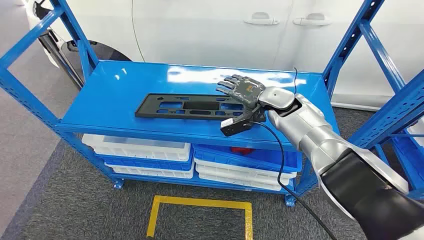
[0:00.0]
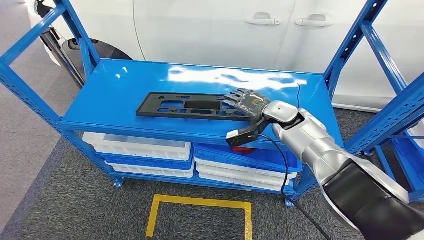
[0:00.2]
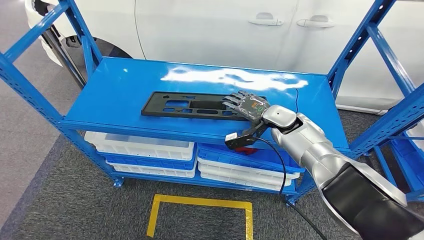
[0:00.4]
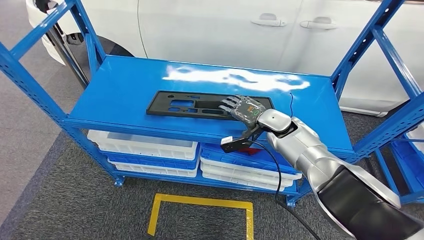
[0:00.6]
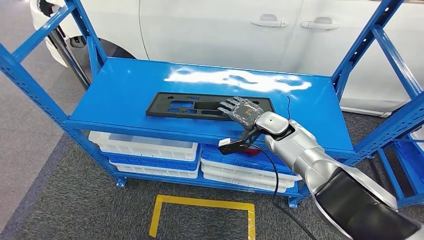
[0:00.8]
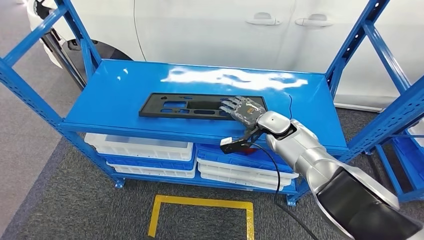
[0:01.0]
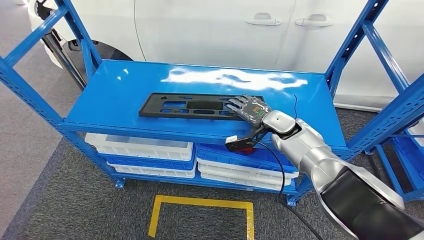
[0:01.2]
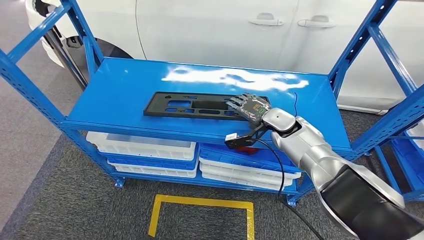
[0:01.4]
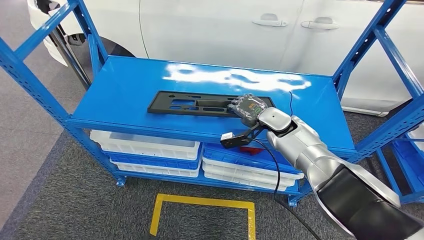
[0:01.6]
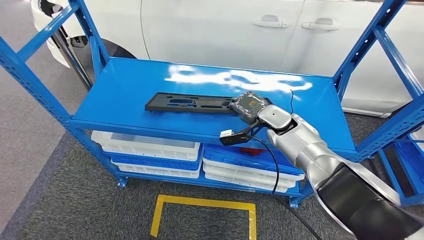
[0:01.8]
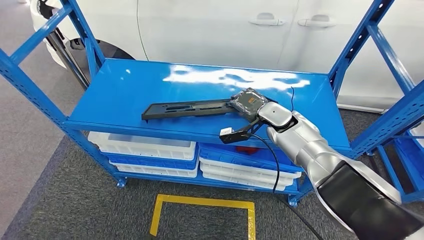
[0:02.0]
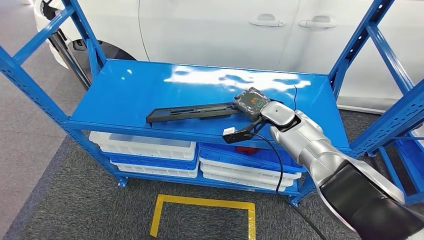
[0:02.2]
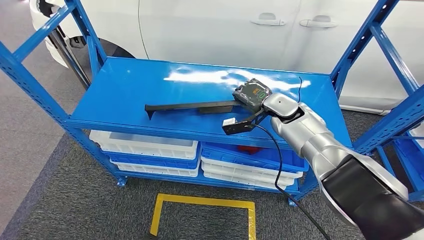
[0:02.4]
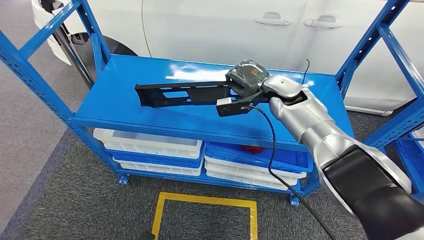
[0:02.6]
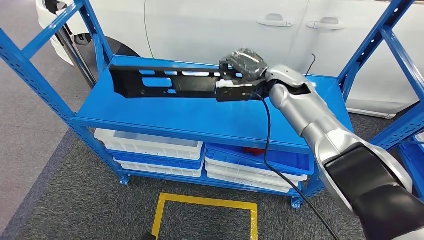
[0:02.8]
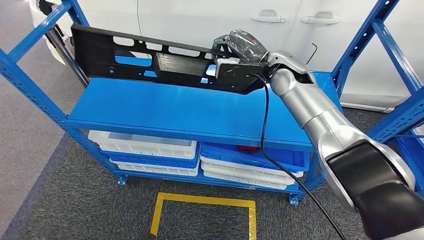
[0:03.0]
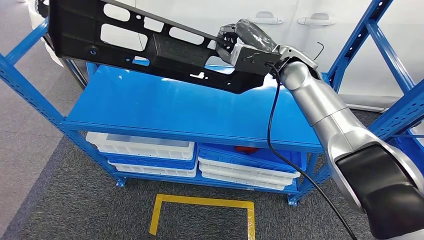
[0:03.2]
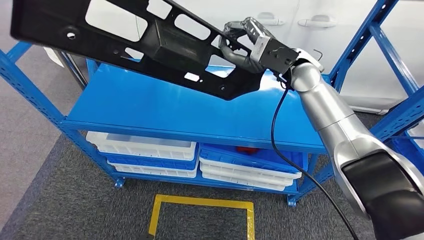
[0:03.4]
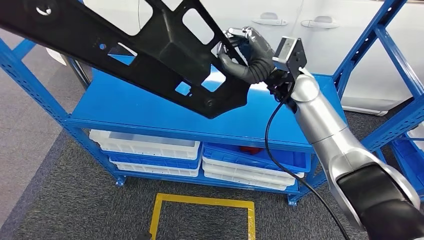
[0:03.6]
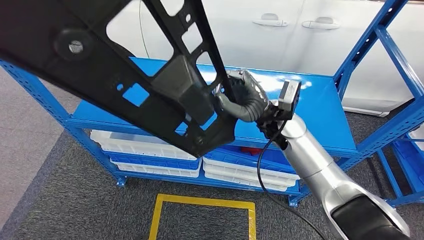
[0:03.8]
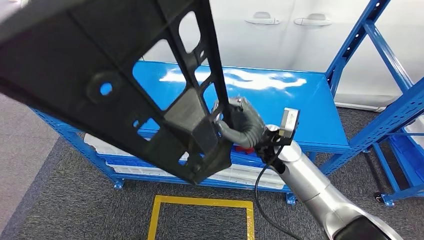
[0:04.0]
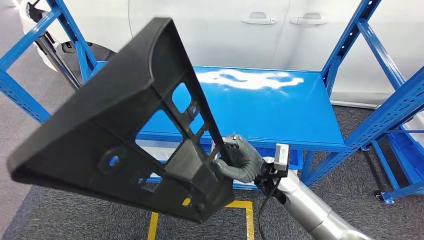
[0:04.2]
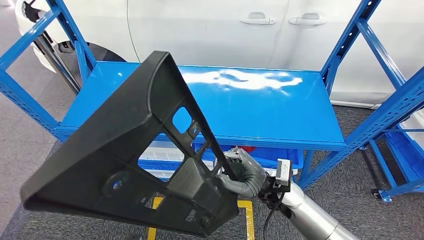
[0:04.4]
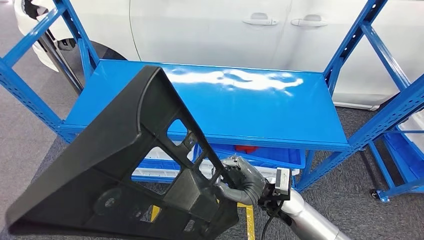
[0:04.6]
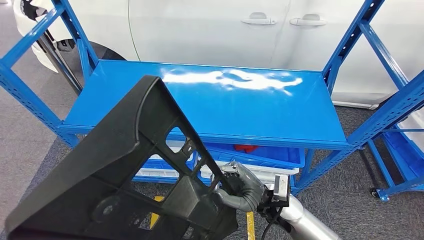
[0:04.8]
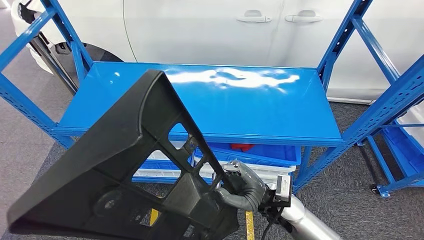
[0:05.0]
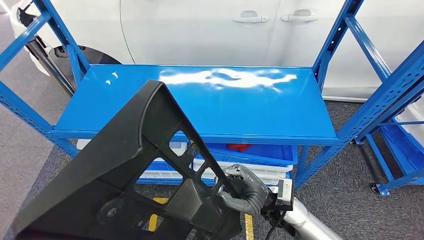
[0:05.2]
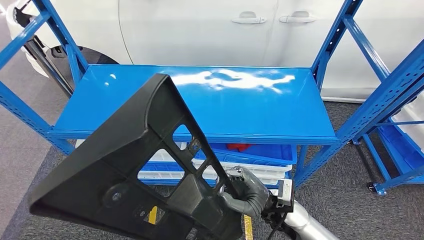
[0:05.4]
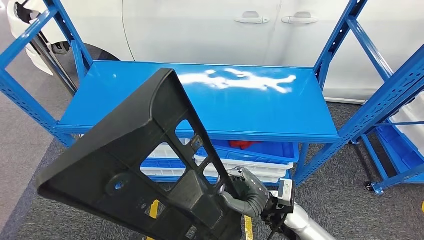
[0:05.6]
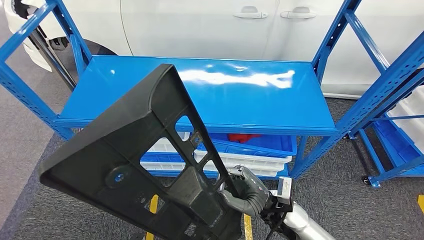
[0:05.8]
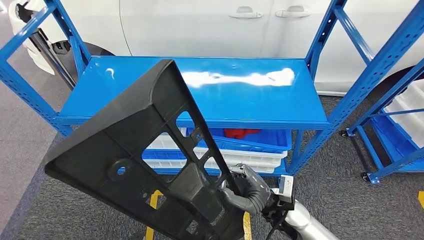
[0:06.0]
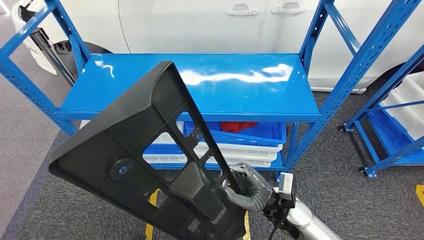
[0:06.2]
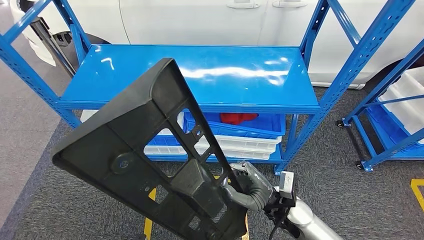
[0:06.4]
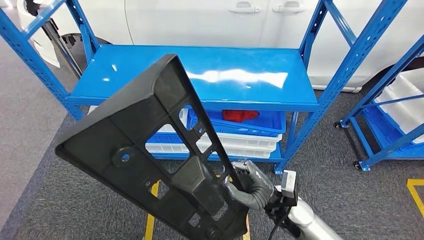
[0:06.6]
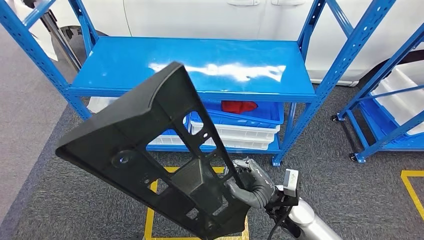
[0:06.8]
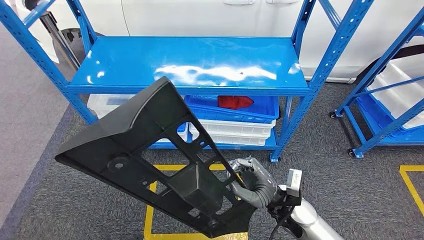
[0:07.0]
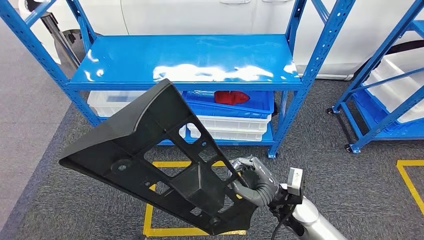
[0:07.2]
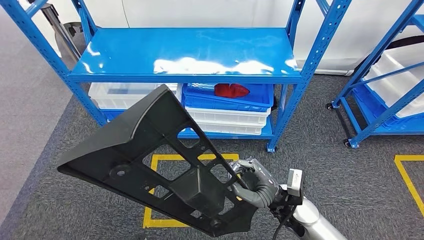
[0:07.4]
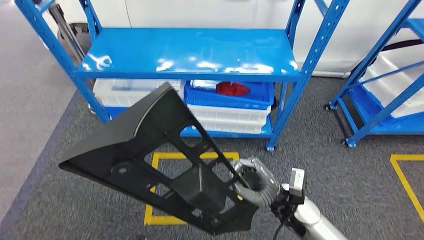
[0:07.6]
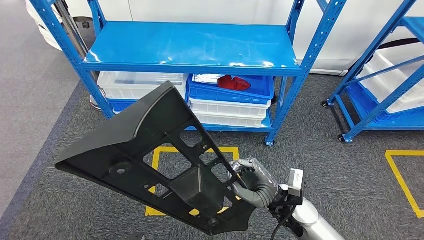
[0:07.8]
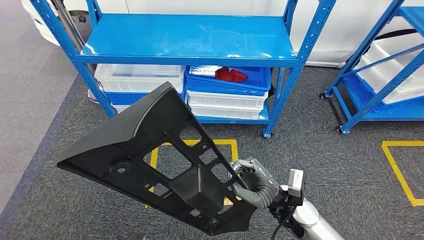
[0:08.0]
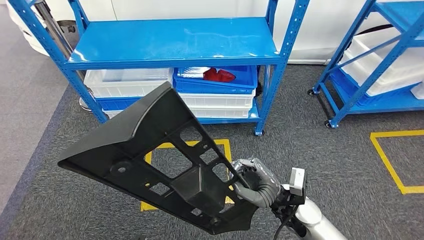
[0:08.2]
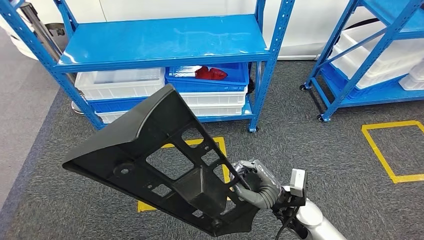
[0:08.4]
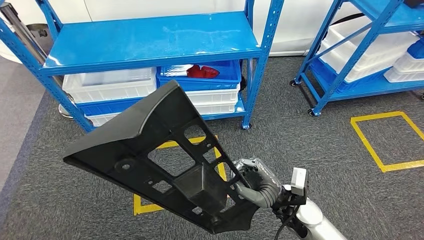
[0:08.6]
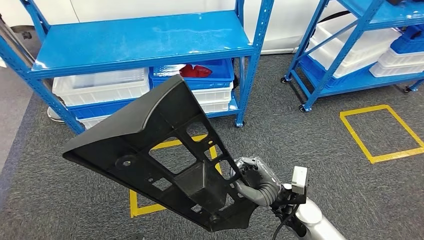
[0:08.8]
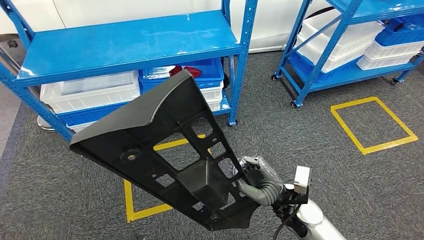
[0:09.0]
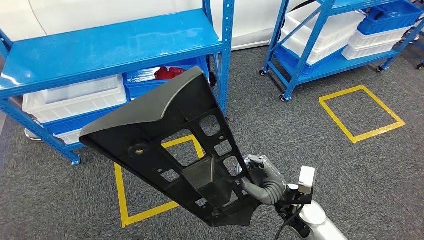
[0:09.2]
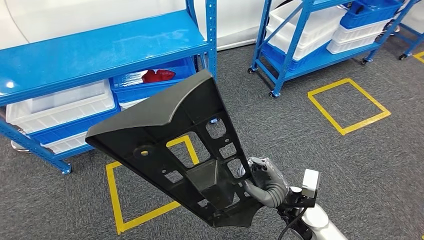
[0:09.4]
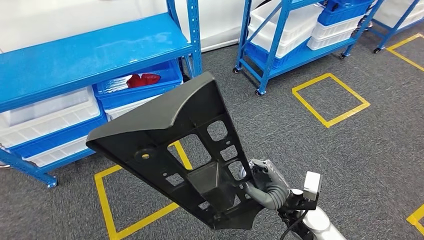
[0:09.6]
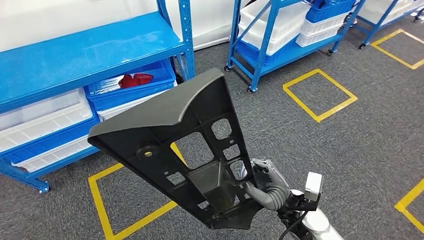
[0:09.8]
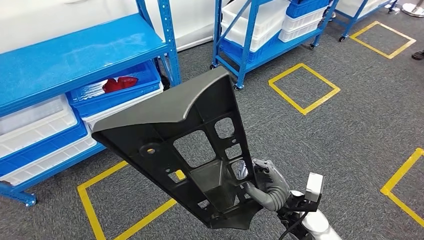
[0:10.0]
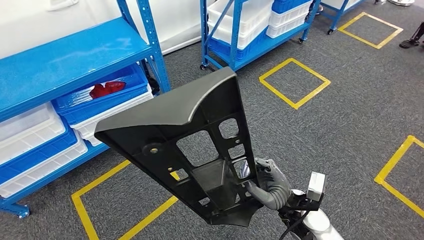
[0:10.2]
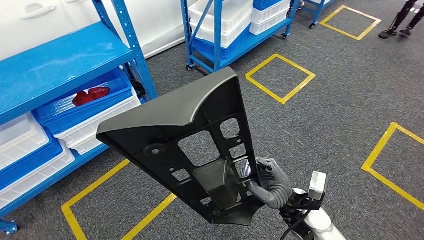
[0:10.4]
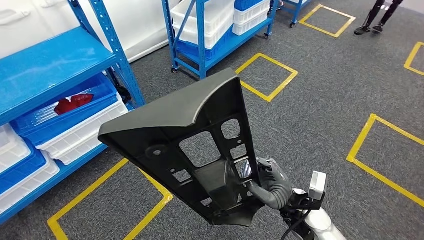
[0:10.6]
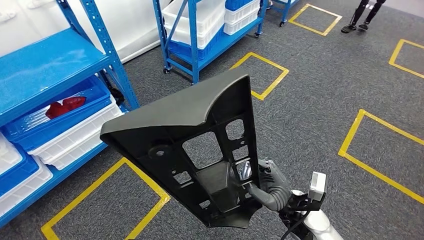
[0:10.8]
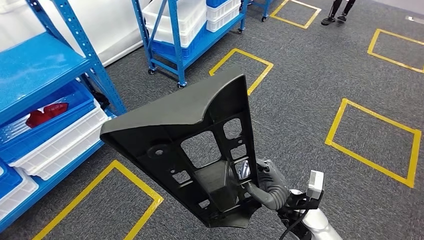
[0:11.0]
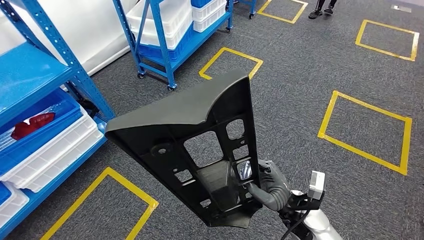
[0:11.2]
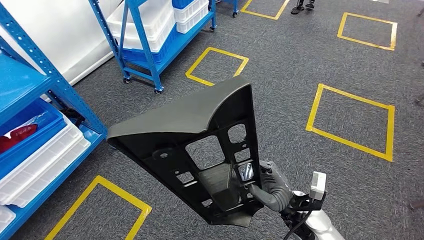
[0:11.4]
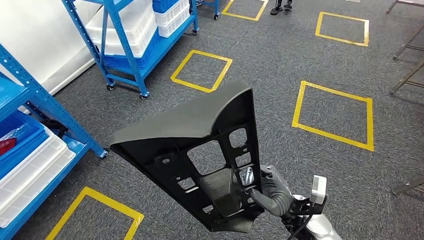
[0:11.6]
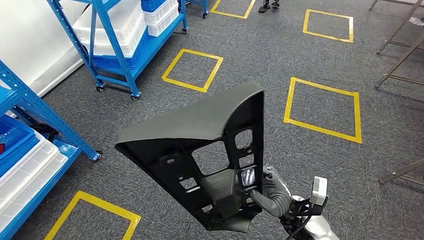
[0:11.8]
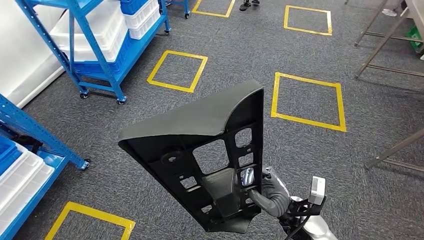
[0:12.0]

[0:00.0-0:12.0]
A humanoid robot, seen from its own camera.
Step, 0:00.0 to 0:04.4: Pick up the large parts from the shelf.

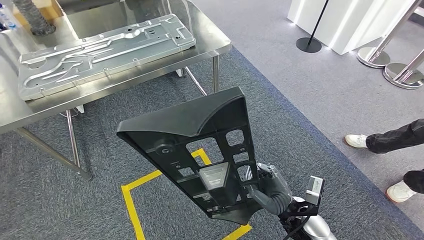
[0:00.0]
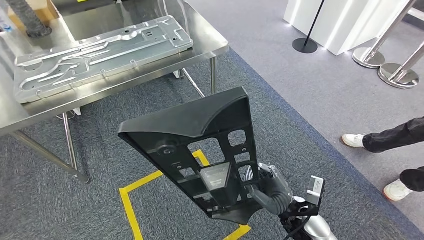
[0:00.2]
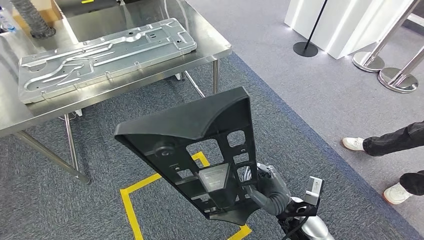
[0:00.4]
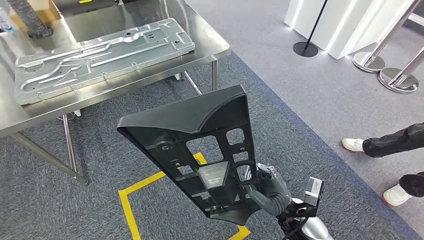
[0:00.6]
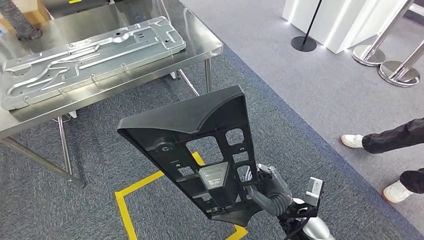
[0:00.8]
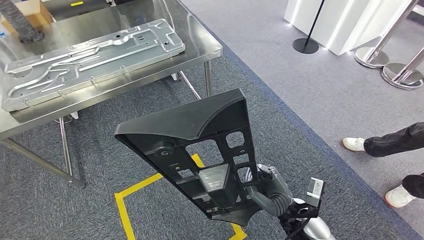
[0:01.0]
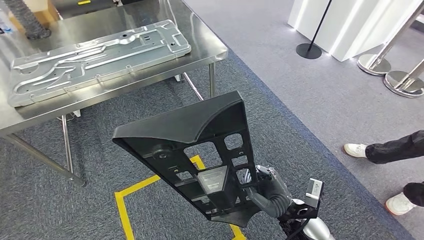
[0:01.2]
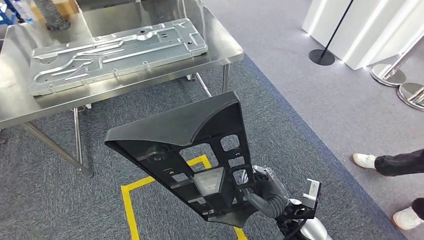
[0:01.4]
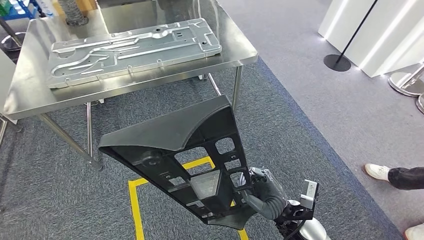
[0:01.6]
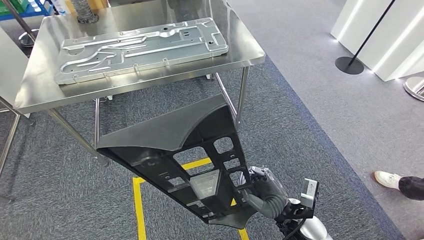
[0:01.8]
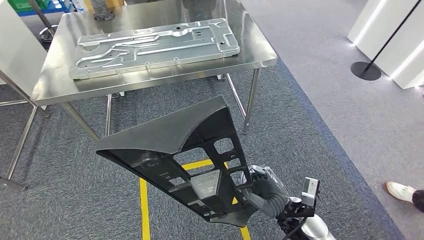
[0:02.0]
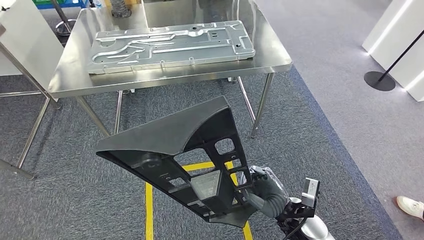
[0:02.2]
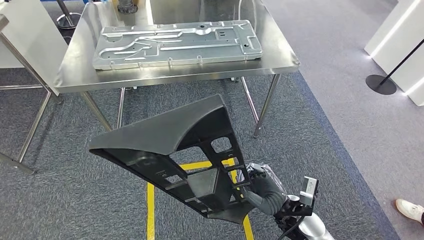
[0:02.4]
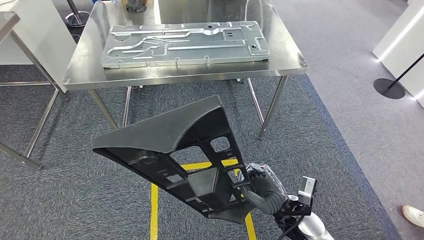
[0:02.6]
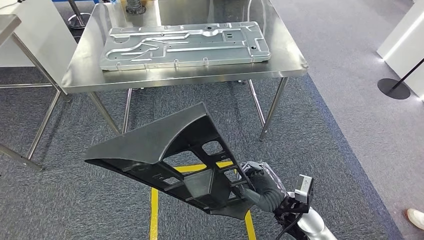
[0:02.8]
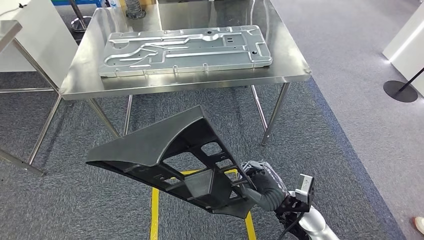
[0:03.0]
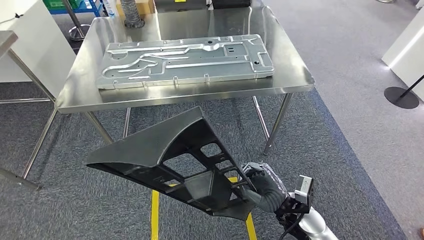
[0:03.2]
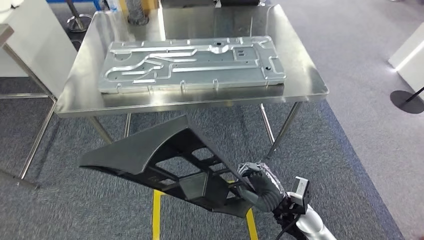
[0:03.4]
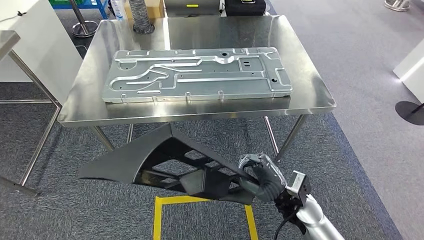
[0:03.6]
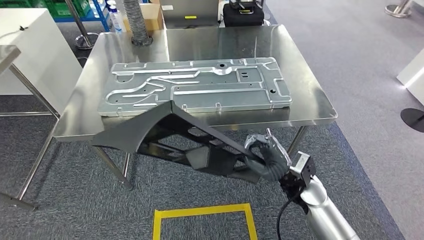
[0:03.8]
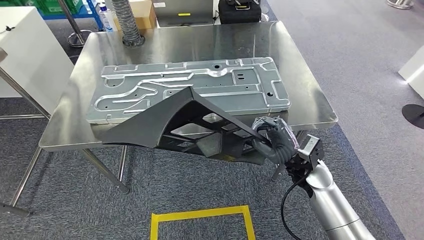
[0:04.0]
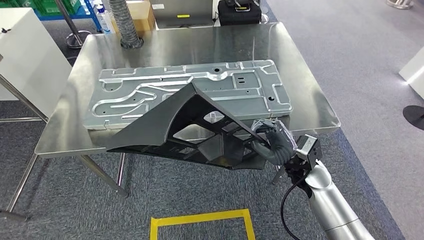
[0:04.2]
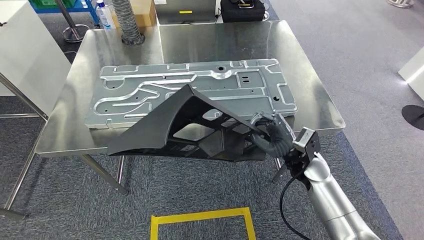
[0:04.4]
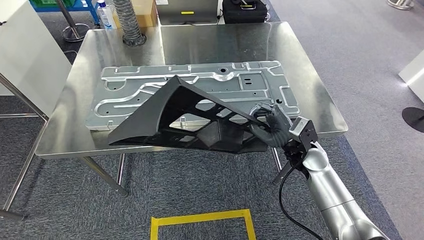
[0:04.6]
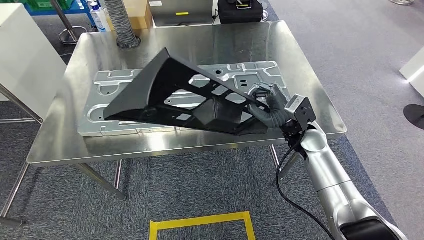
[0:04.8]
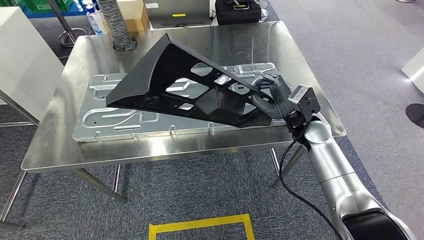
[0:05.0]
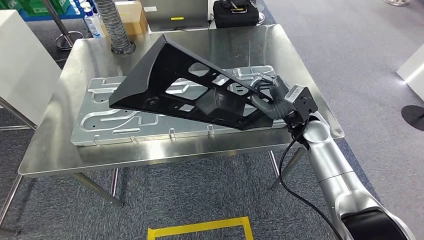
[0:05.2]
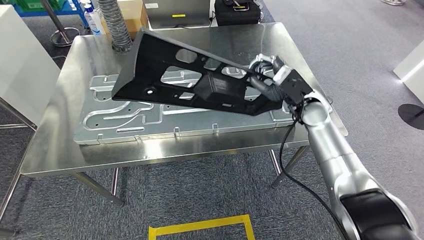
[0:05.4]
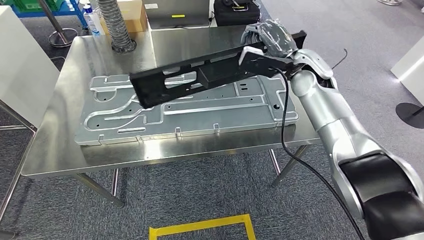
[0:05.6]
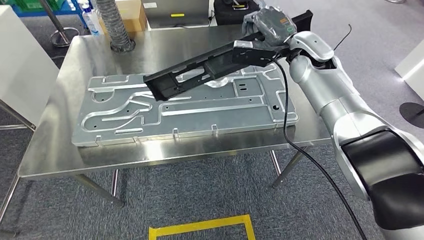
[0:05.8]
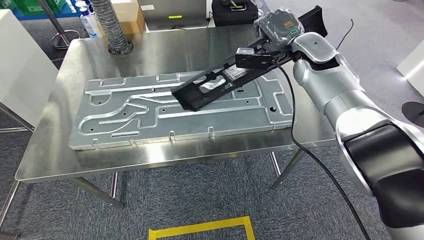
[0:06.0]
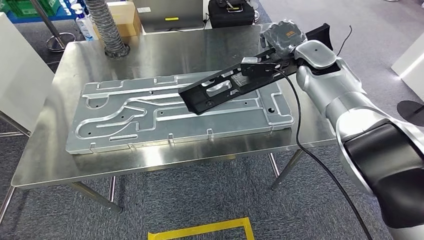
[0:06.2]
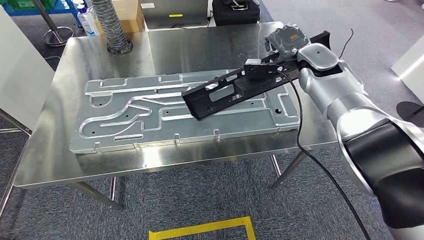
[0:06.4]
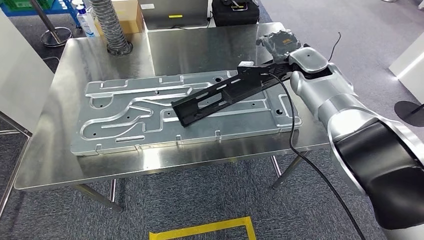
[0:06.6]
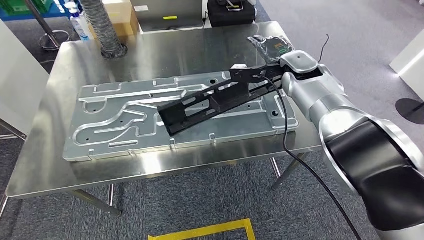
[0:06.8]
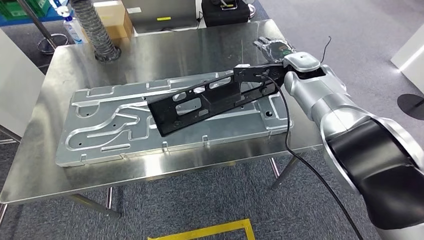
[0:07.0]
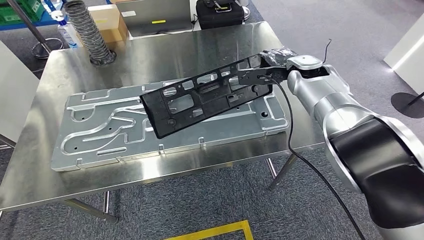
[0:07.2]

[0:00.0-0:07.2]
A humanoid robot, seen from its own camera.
Step, 0:00.0 to 0:02.4: Move the large parts to the workbench.
